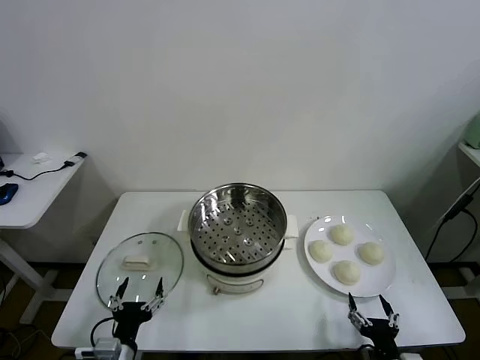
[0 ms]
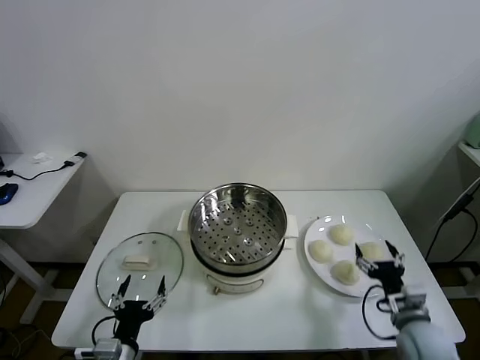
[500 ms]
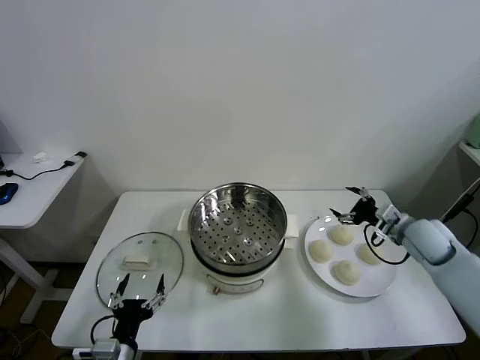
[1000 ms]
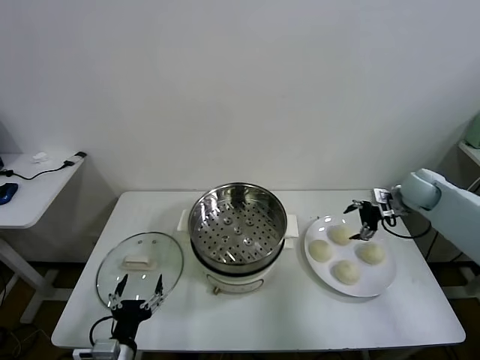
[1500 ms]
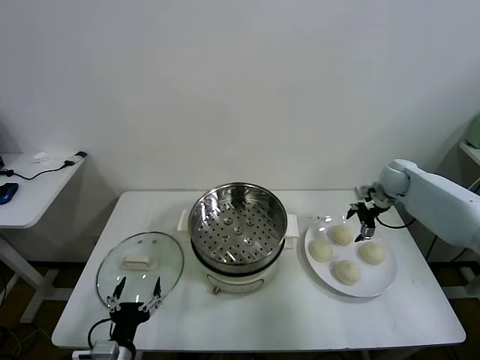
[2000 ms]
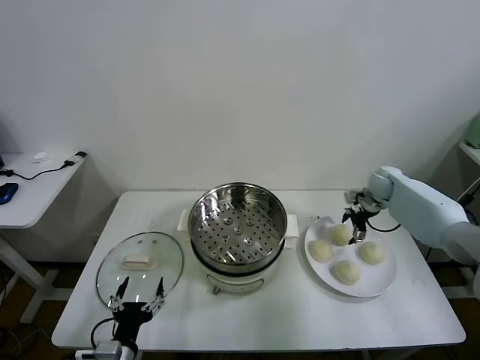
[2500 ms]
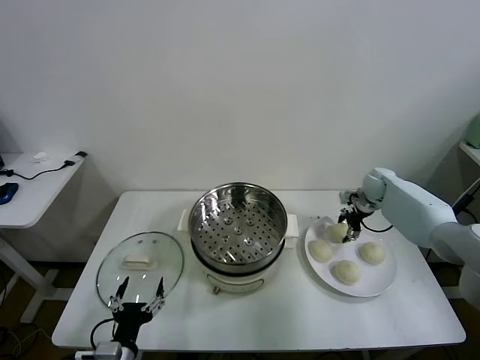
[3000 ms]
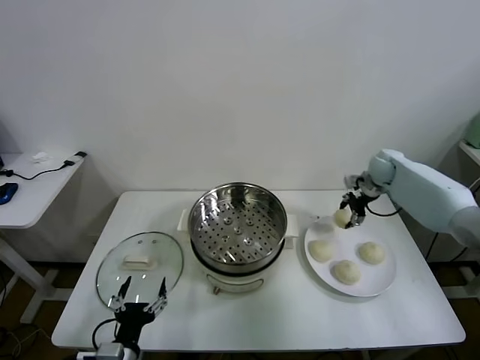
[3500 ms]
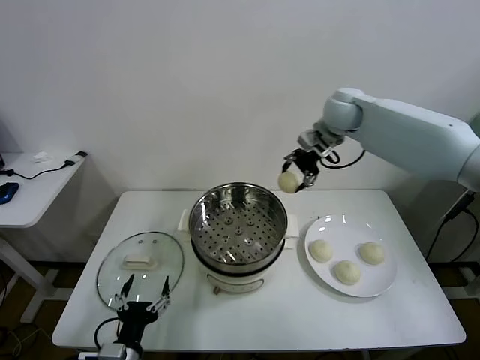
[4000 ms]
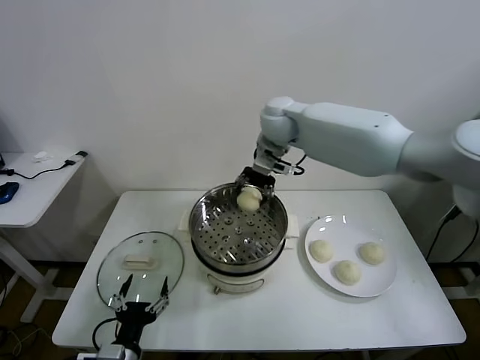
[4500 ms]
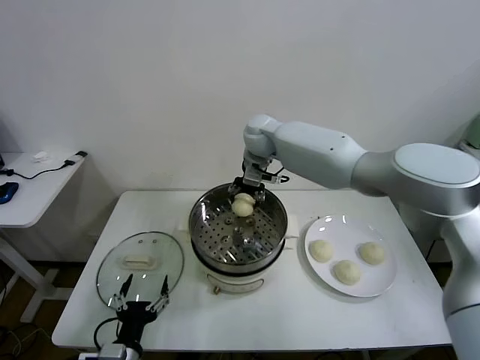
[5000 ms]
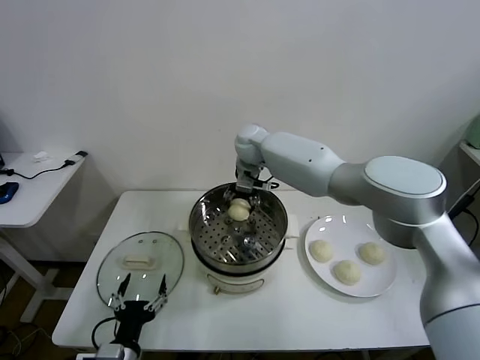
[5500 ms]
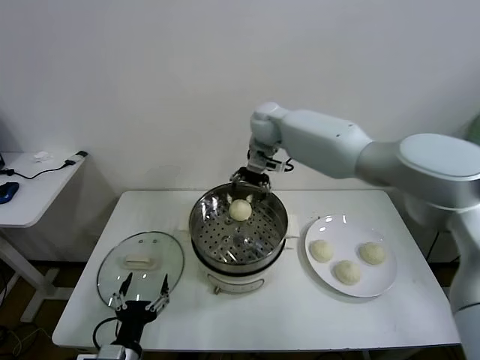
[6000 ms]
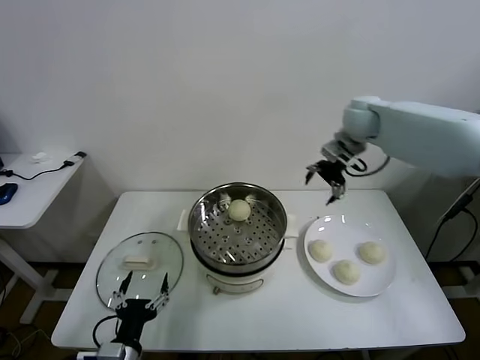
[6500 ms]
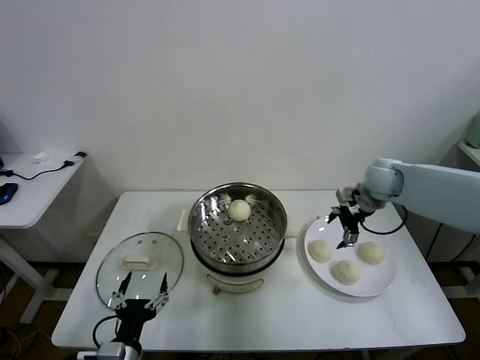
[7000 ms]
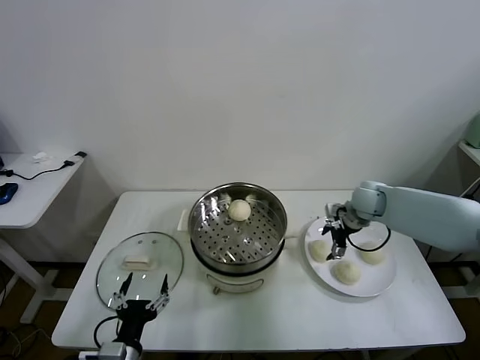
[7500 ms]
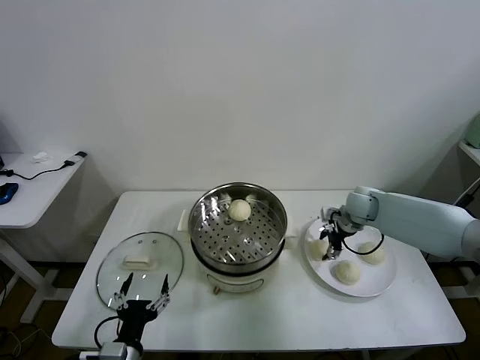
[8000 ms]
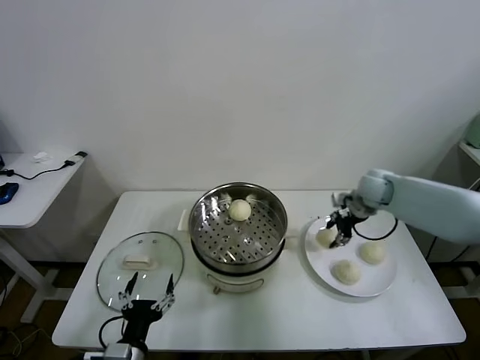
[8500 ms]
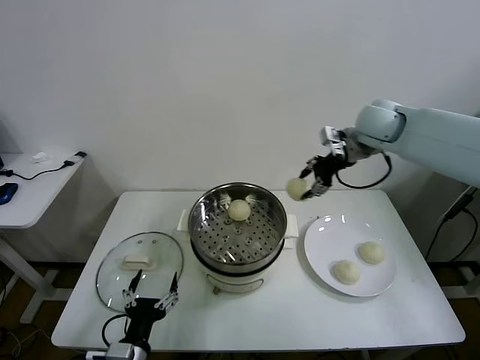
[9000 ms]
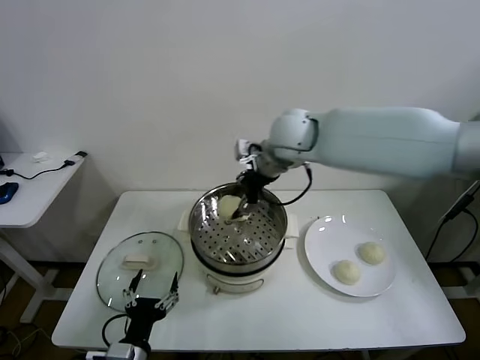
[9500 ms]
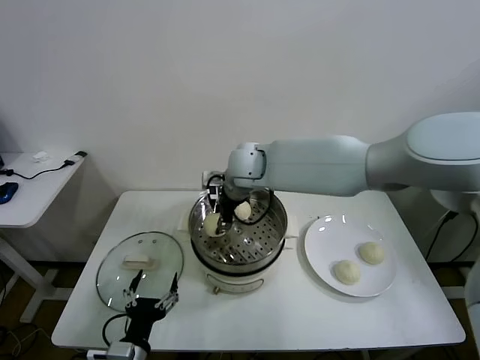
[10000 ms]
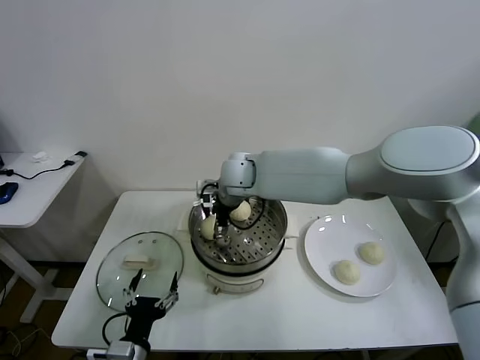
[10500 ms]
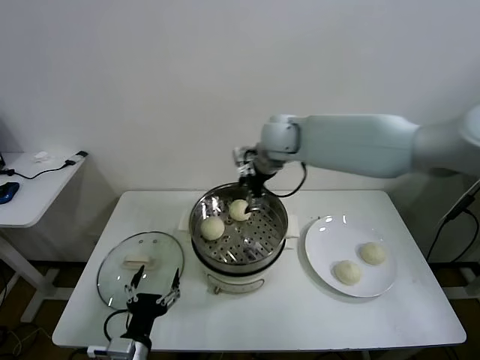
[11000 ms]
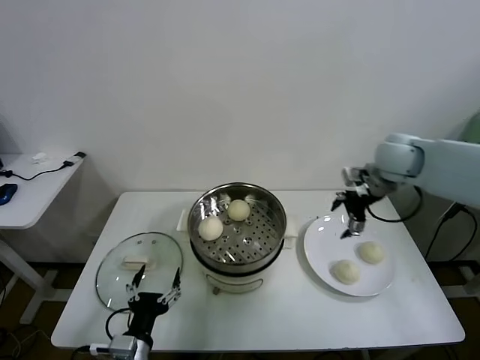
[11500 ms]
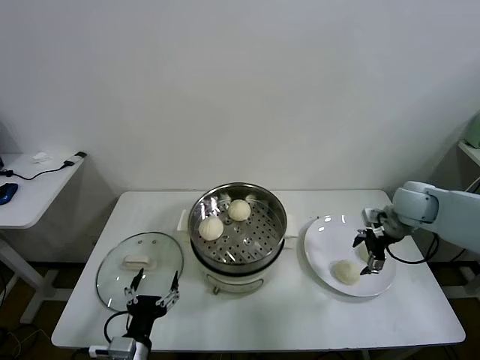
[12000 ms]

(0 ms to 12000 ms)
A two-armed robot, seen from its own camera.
Task of the whole recording: take steamed baozi put them in steamer.
Step, 0 ms - 3000 ms: Grasp the baozi in the plate with right gripper.
Step, 3500 ms - 5500 ms: Place the baozi on the steamer with right gripper.
Step, 6000 ms - 8000 ms: Grasp the baozi in the plate with right gripper.
Step, 8500 ms - 10500 ms: Place the baozi on the steamer with right gripper.
2000 ms - 4000 ms: The right gripper goes roughly 30 cm to the left and upward, and closes up.
4000 ms - 6000 ms: The right gripper goes about 10 cm to the left, and opens.
6000 ms - 8000 ms: The right gripper goes some 35 cm to the right, downward and backward, and closes.
8000 ms - 10000 ms: The right gripper heads to the left and upward, covering roughly 35 cm.
10000 ms - 12000 ms: The right gripper goes about 40 cm to the right, and opens its fingers.

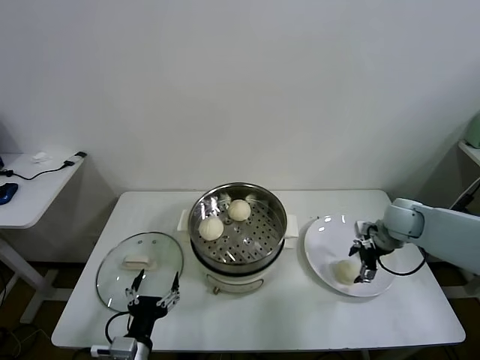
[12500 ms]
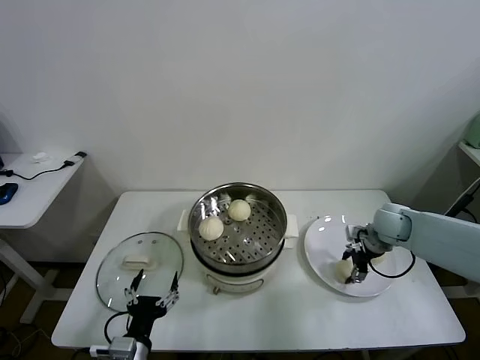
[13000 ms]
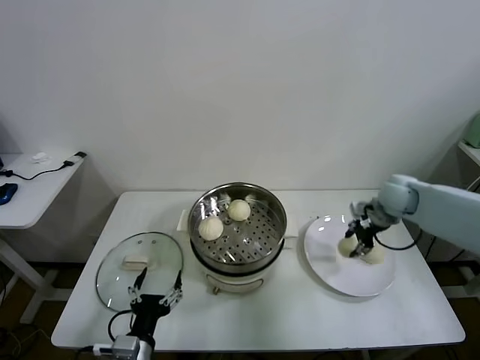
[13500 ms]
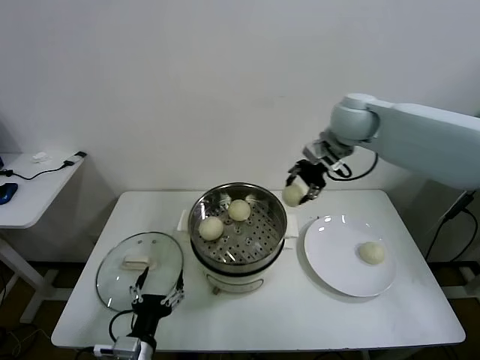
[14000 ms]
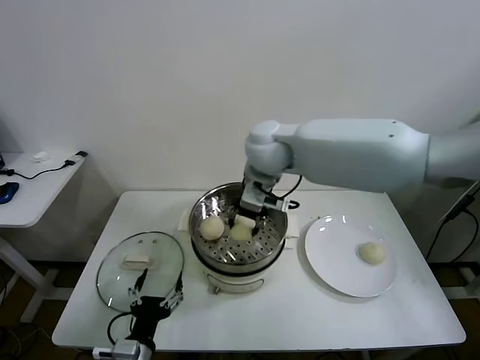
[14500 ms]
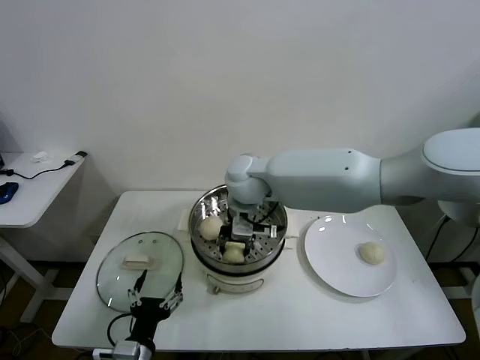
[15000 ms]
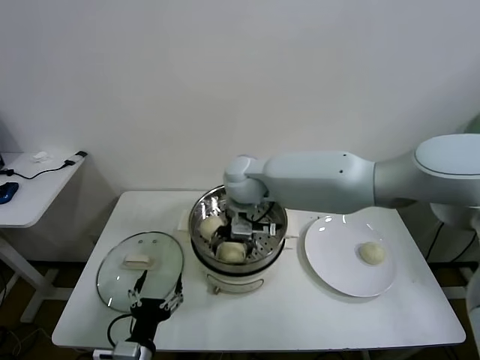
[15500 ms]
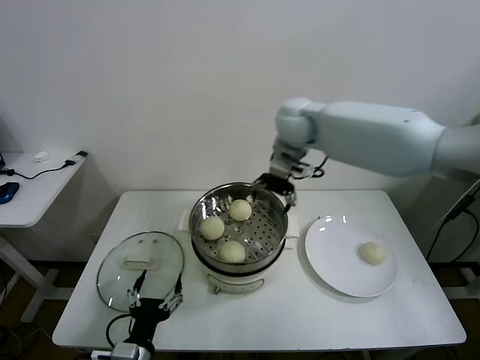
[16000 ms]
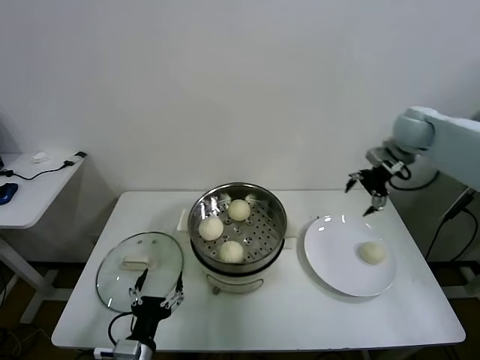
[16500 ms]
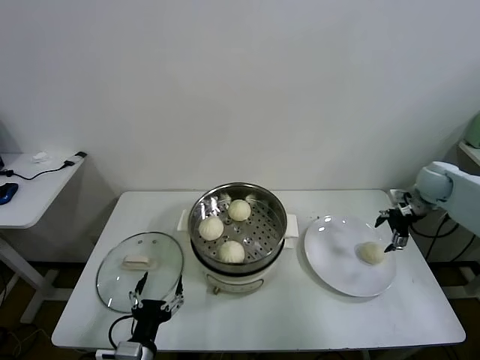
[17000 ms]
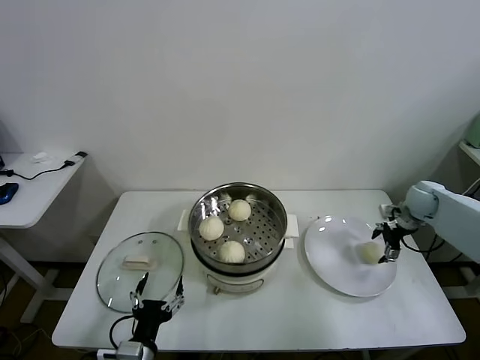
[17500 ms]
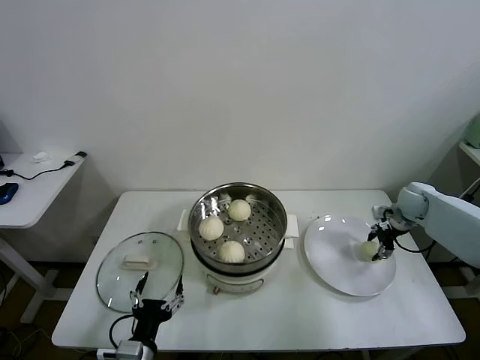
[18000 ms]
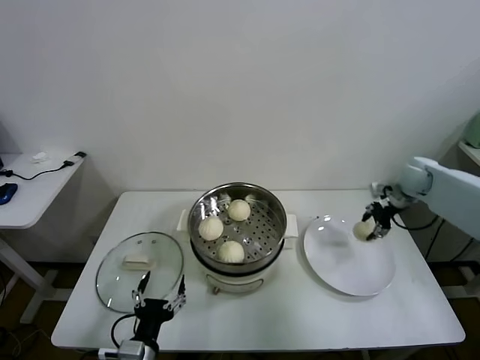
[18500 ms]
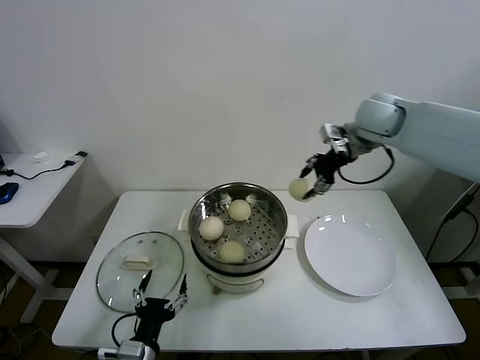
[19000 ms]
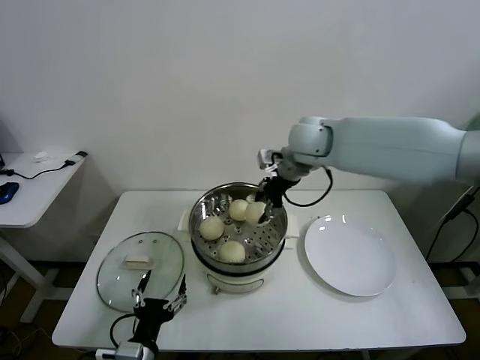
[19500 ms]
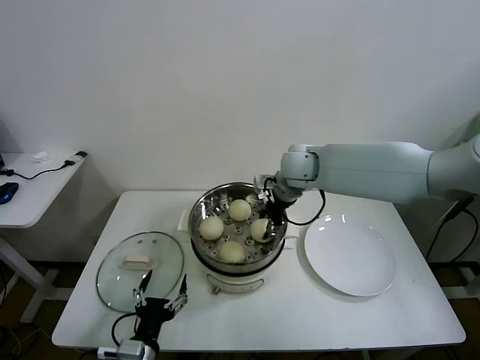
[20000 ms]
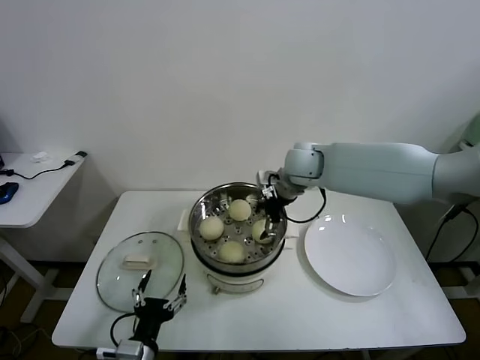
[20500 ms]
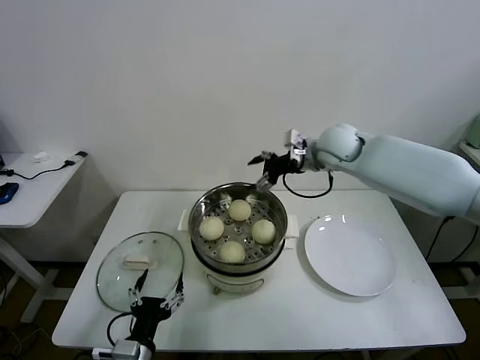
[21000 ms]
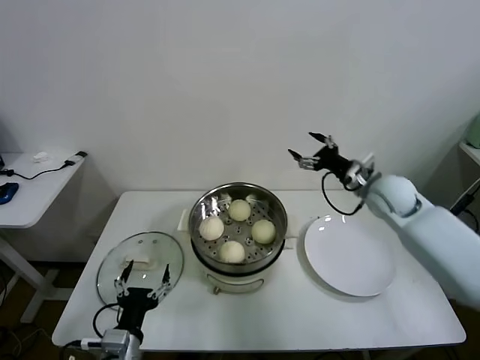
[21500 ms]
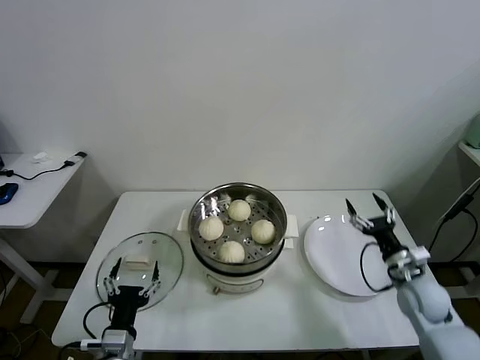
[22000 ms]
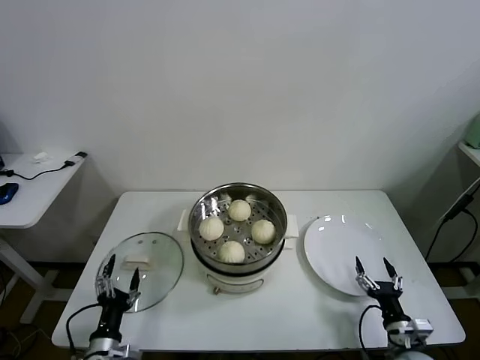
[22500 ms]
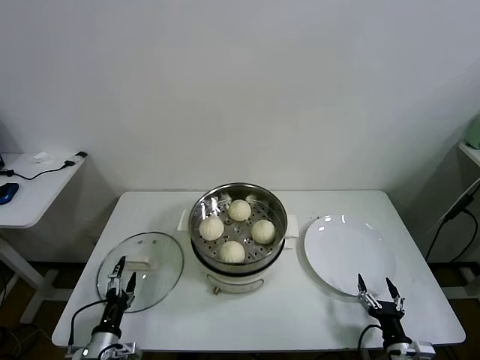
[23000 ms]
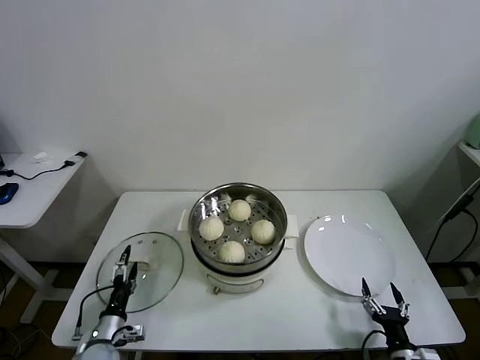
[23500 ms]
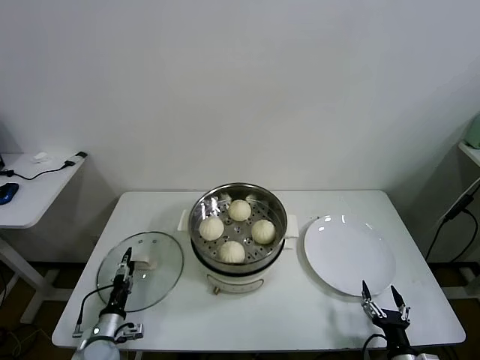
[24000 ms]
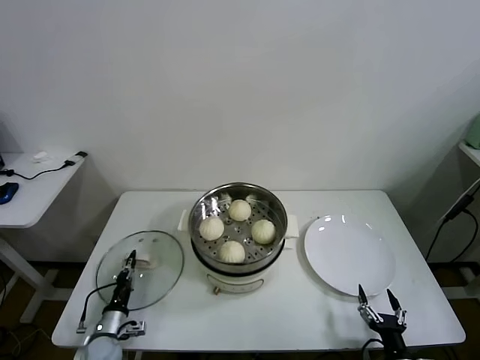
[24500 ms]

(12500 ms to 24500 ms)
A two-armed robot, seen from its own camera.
Task of the whole recording: take steamed baozi put them in steamer.
Step, 13500 ms - 15000 ms: Place the baozi on the steamer with right gripper.
Step, 16000 ms - 17500 ms: Grasp the baozi in the plate with right gripper.
Step, 18000 ms - 20500 ms: Place the baozi on the steamer with right gripper.
Step, 21000 ms - 24500 ms: Grasp the pot lid with left gripper.
12500 ms - 14500 ms: The right gripper moves to the left and upward, about 40 cm, and closes up.
14500 ms - 16500 ms: The right gripper moves to the right, roughly 35 cm, and opens.
16500 ms - 18500 ms: The right gripper shifts about 10 cm downward, and closes its fingers.
18500 ms - 20500 ms: The right gripper moves to the left, some 30 cm, and opens up.
20500 ms - 22500 ms: The left gripper is displaced to the left and downward by some 10 cm; the right gripper goes some 50 cm backward, downward and to the right.
22500 ms - 24500 ms: The right gripper heads backward, covering some 5 cm, while the left gripper moves downward and forward, about 10 cm, and closes its fingers.

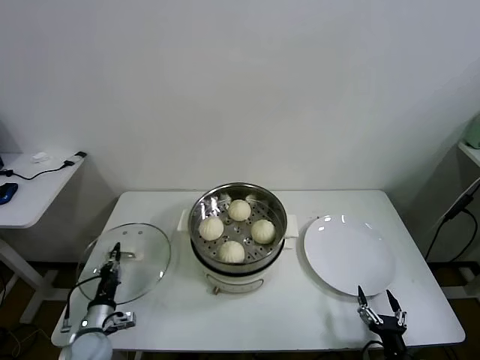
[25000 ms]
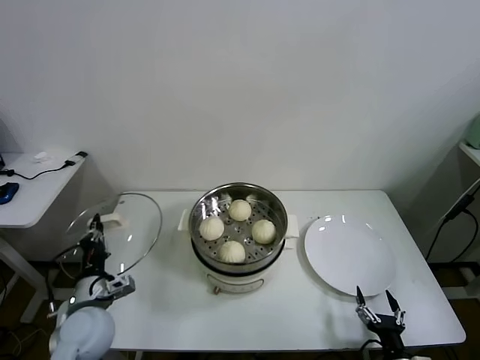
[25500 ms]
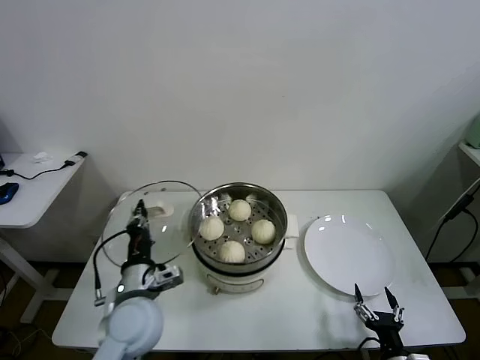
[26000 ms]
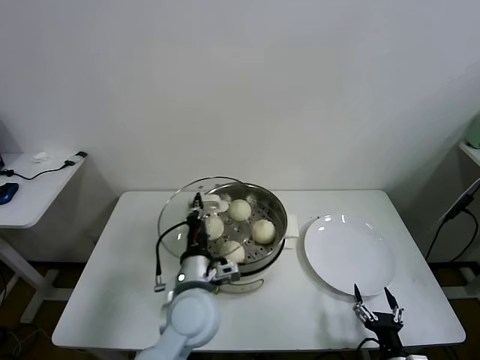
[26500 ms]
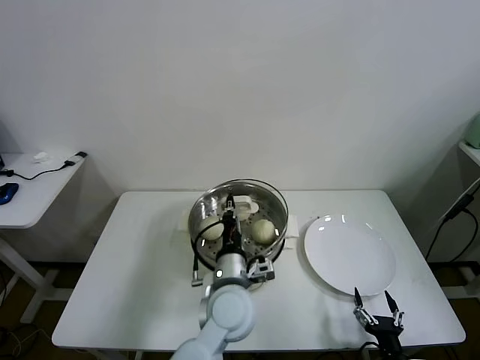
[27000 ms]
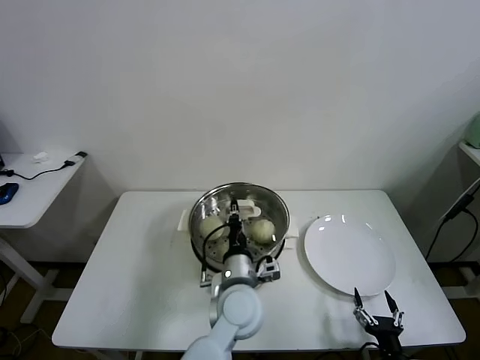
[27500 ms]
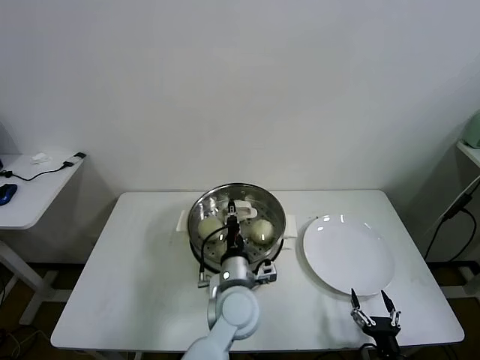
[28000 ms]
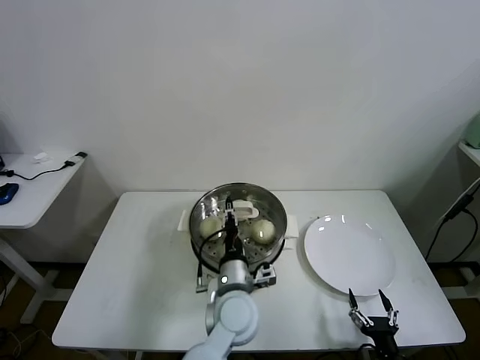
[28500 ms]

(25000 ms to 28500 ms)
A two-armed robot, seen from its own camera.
Task of the whole recording: take steamed baozi put them in steamer.
Step, 25000 ms - 28000 ms: Place the pot lid on the steamer with left gripper.
25000 ms - 27000 ms: The left gripper is displaced to the right and upward by some 40 cm.
27000 ms - 28500 ms: The left gripper opens its fingers.
